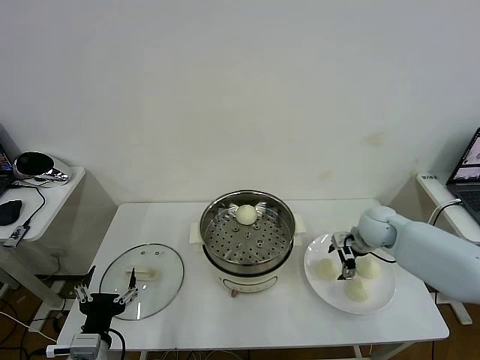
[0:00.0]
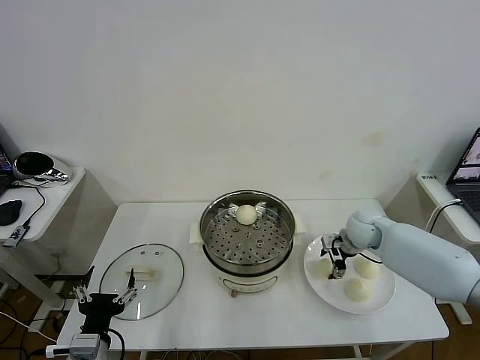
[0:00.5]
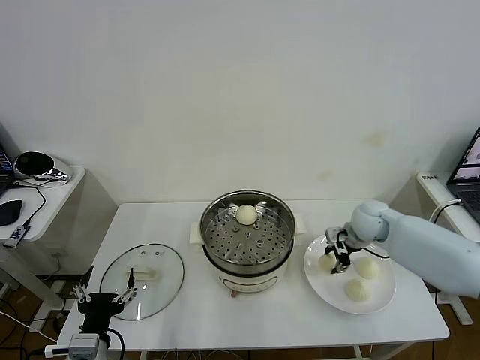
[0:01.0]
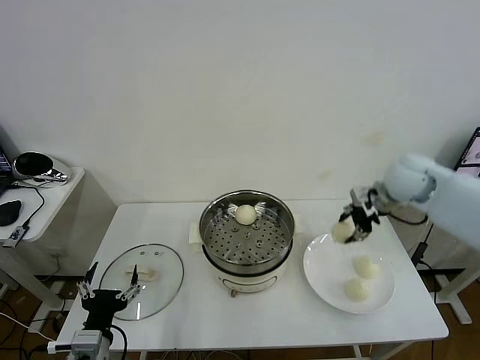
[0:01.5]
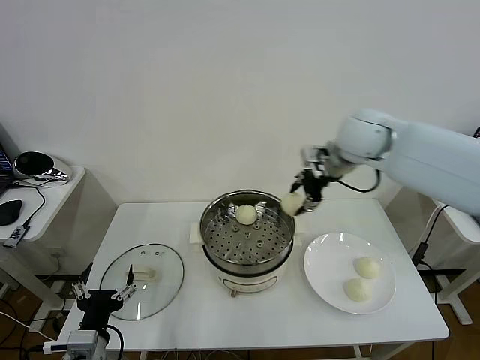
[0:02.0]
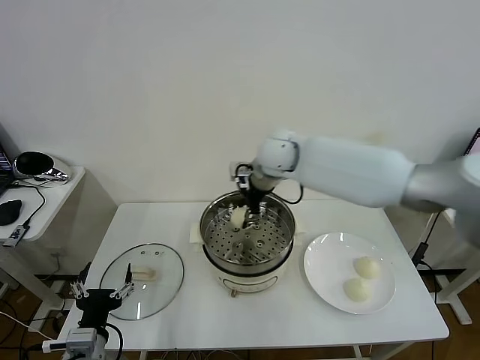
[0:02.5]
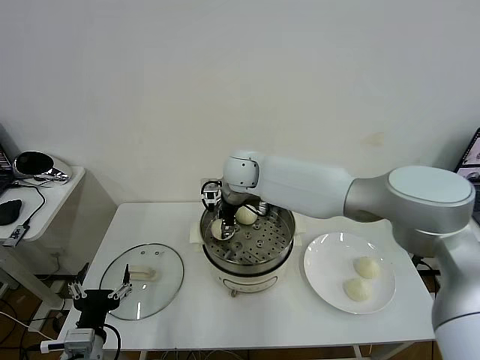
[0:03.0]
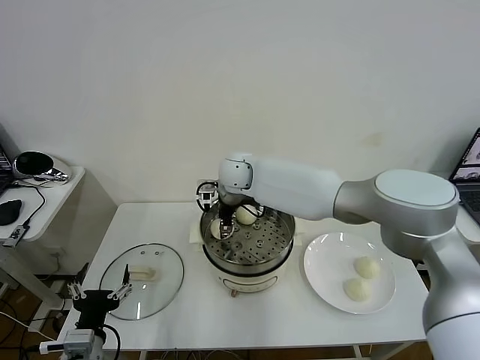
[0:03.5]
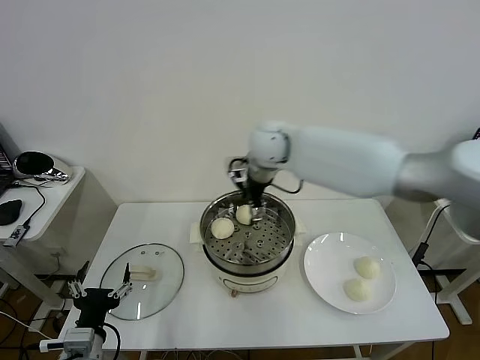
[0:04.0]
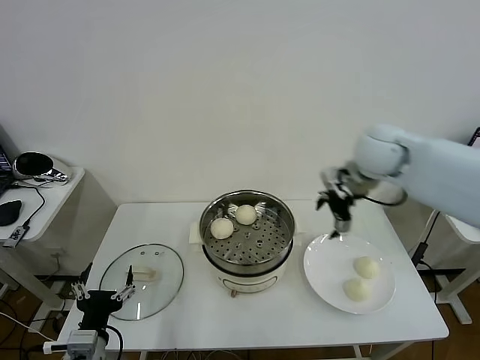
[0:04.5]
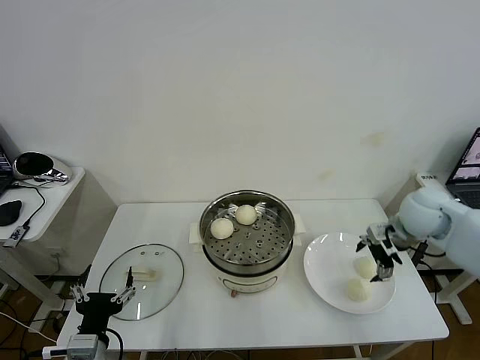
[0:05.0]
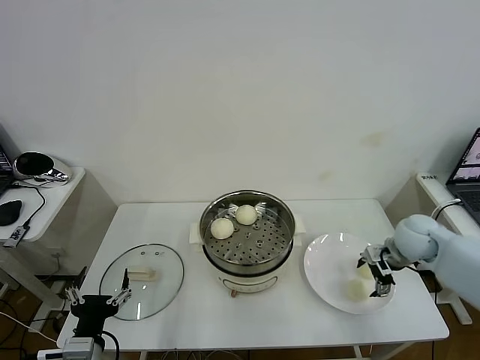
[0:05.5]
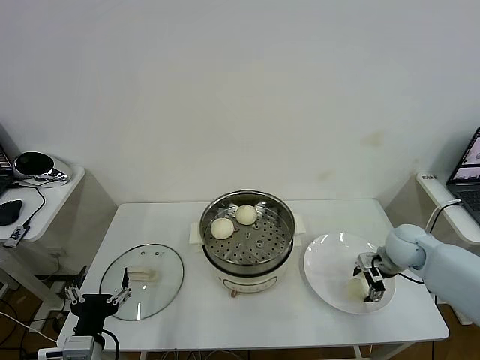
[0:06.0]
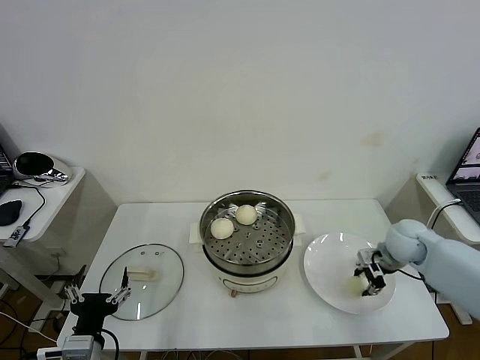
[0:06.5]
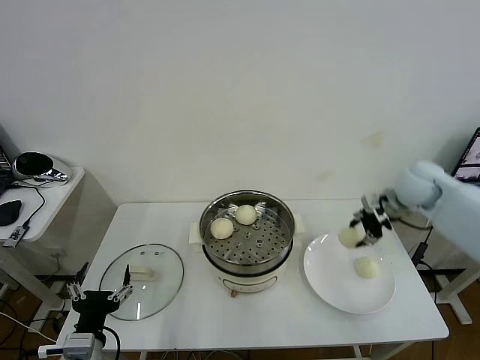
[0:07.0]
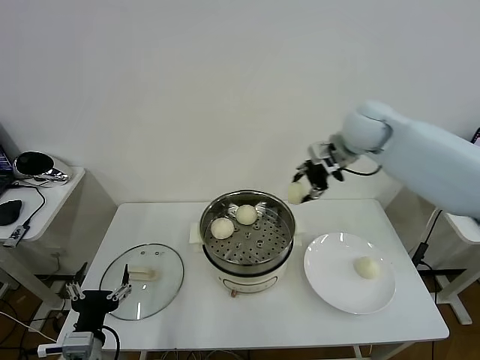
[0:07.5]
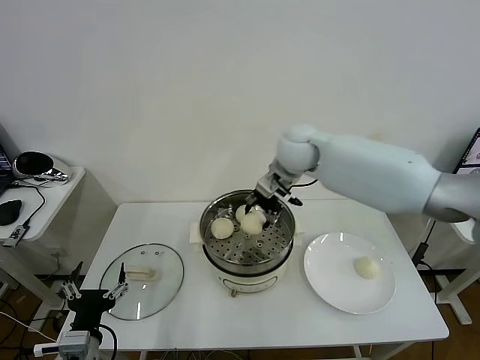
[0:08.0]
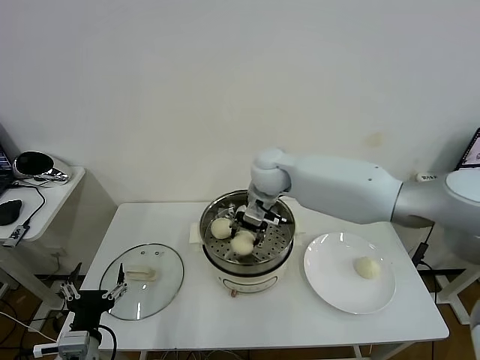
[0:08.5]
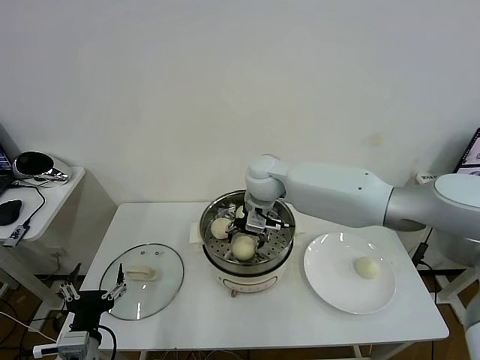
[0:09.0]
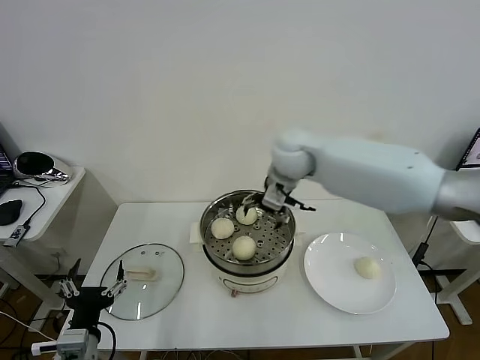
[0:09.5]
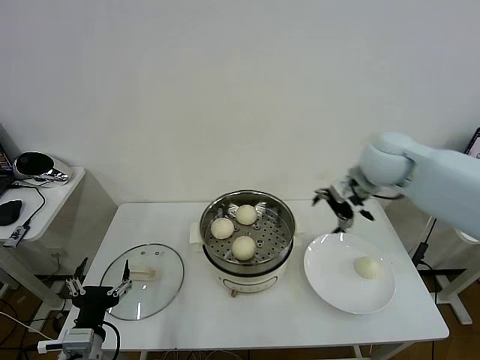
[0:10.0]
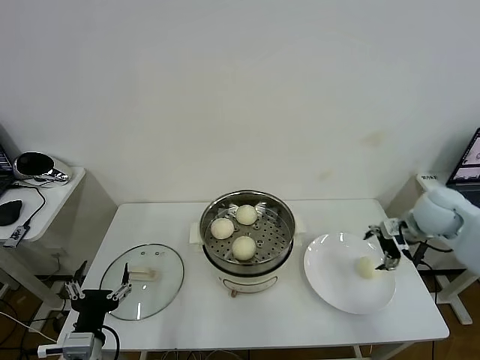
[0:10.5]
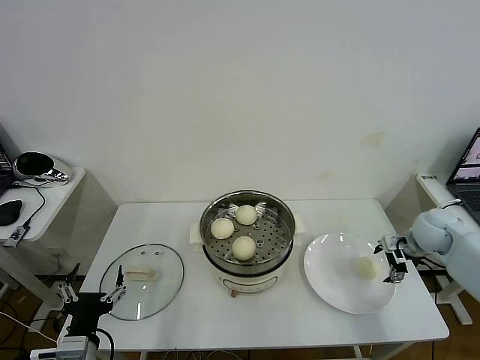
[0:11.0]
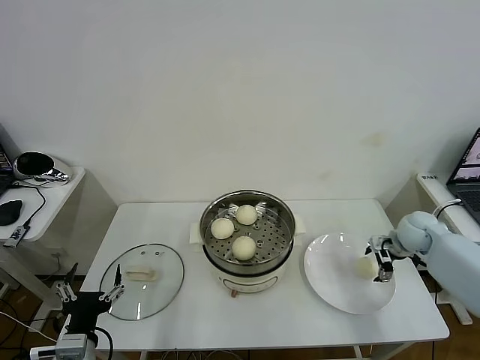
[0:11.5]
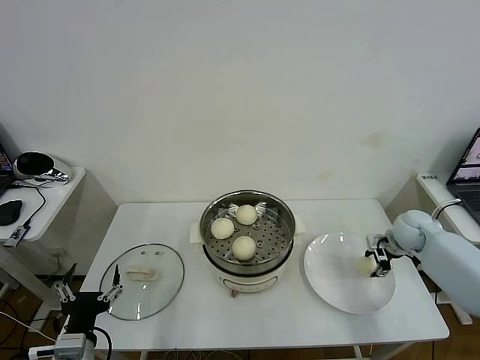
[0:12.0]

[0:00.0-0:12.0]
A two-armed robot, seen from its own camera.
Task of the whole recording: take steamed baozi put them in steamer then cover it.
Step, 0:01.0 to 0:03.5: Place the baozi on the steamer with right gripper.
Step, 0:04.0 to 0:06.0: Grasp the baozi in the plate with right gripper.
Step, 0:06.5 to 0:09.0: Place the baozi on the steamer with right gripper.
Step, 0:09.5 to 0:11.5: Grasp the baozi in the plate with right gripper.
0:00.0 to 0:02.0: The right gripper is displaced upward and to the left by some 25 cm, and closes.
0:02.0 to 0:04.0: The right gripper goes roughly 10 cm to the left, and opens its fingers.
0:04.0 to 0:06.0: The right gripper is displaced to the right and downward by roughly 35 cm, and closes.
0:06.0 to 0:08.0: The right gripper travels to the left and upward by approximately 35 cm, and closes.
0:08.0 to 0:10.0: The right gripper heads to the right, covering approximately 20 cm, and opens its fingers.
0:10.0 to 0:12.0: The right gripper heads downward and to the right, covering some 25 cm, and closes its fingers.

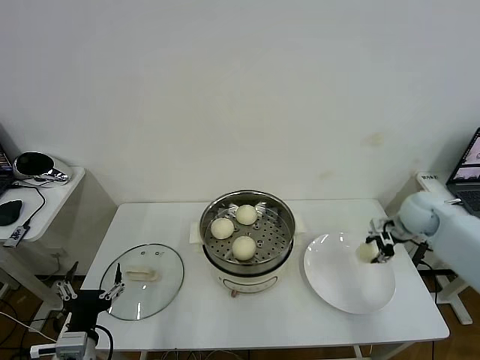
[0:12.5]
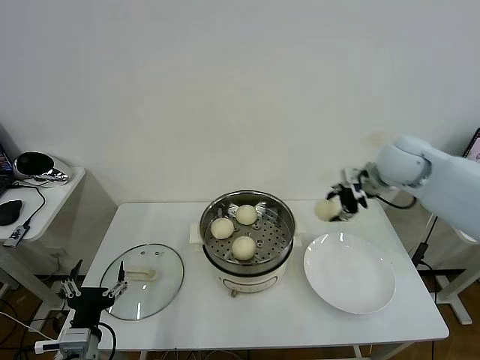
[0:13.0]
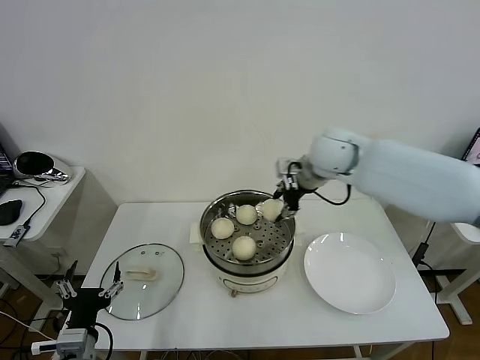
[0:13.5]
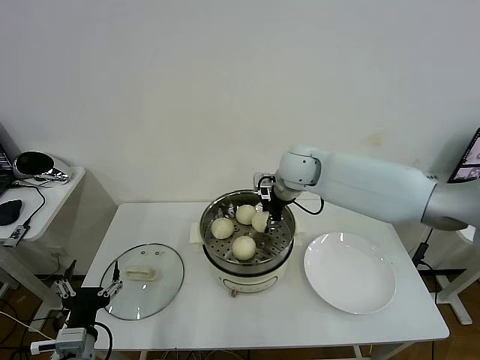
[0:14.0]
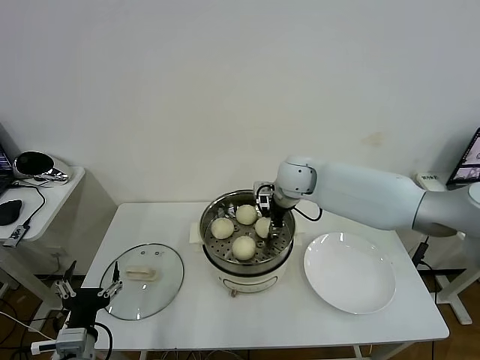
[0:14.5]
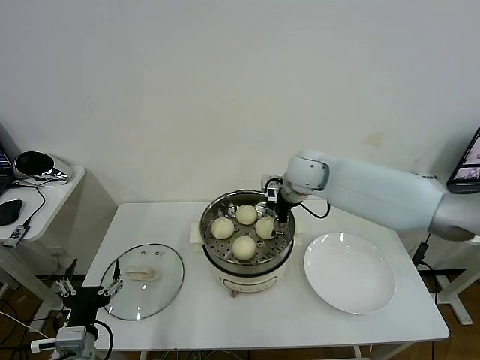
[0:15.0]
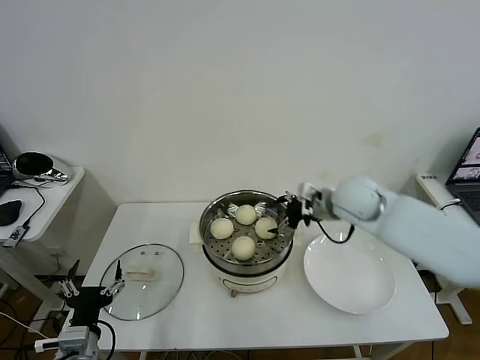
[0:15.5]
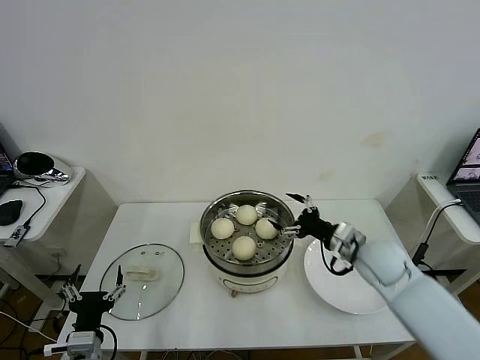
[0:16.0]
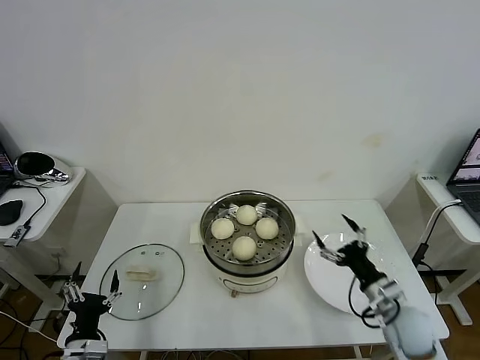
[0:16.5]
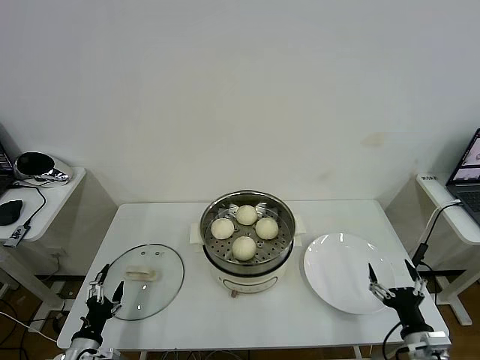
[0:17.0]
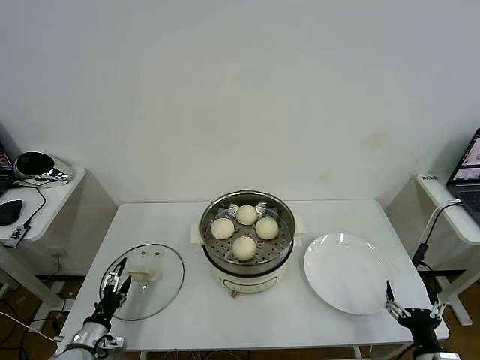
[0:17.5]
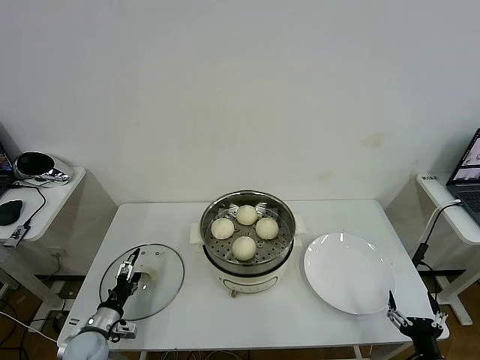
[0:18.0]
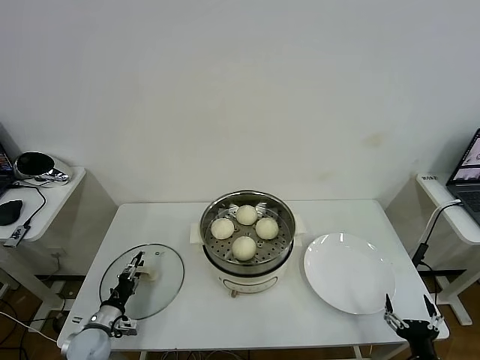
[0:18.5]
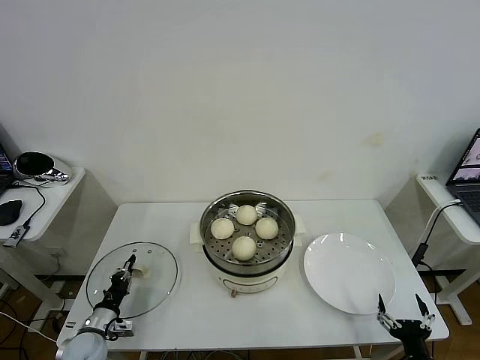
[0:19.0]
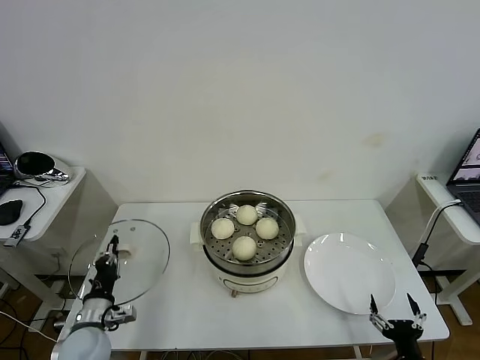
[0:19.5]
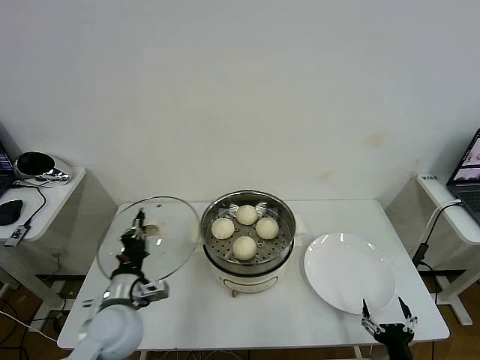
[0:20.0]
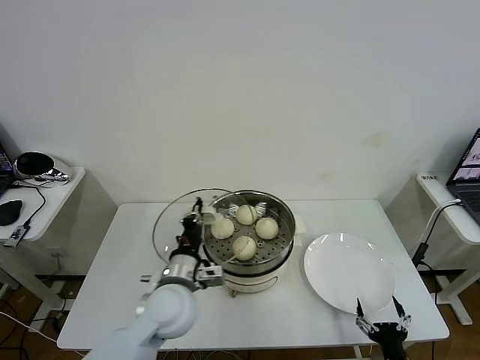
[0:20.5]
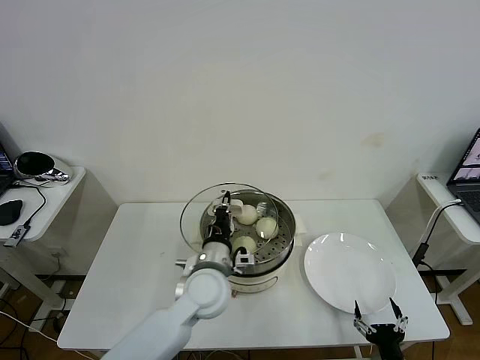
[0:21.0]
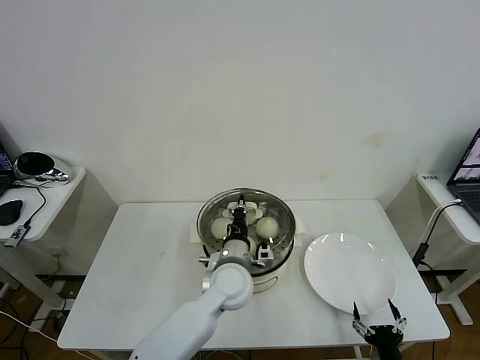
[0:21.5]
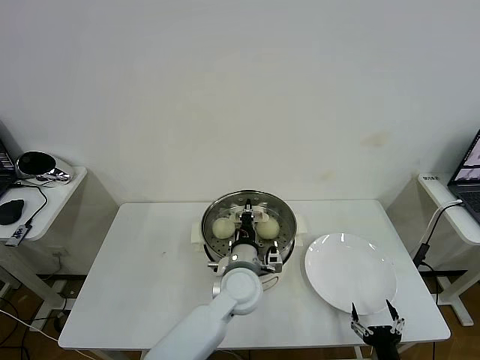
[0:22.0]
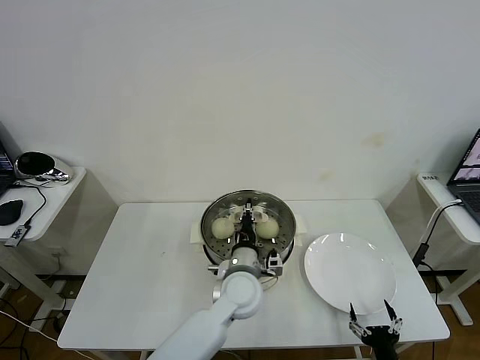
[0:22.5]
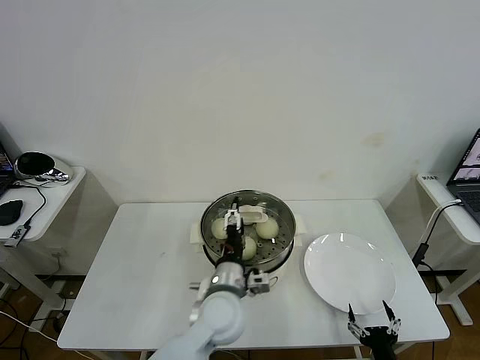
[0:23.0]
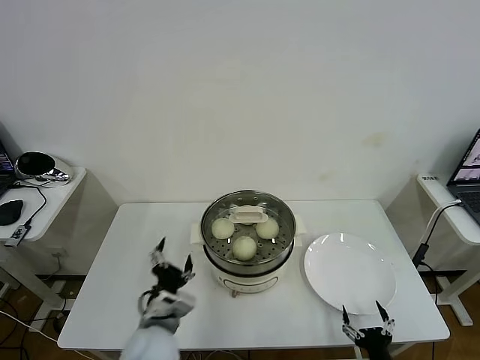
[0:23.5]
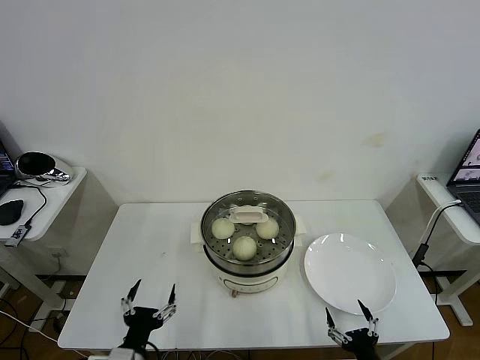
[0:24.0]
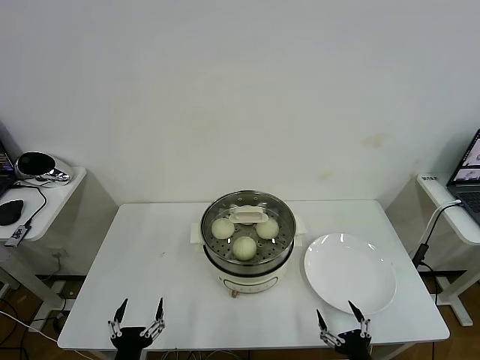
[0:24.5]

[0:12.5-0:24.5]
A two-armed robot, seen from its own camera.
Task of the whole recording: take steamed baozi put them in steamer then cover it.
Step, 0:12.5 to 0:14.5: Place the baozi on the steamer with right gripper.
Step, 0:15.0 to 0:19.0: Grasp the pot lid with left gripper.
Step, 0:19.5 to 0:22.5: Place the pot lid on the steamer with left gripper.
0:12.5 to 0:14.5: The right gripper is displaced to the left by approximately 30 cm.
0:14.5 to 0:16.5: The right gripper moves backward, to the right and downward, approximately 40 cm, and opens up, while the left gripper shifts about 10 cm downward.
0:16.5 to 0:18.5: The left gripper goes approximately 15 cm forward, downward and to the left, and closes up, while the right gripper is displaced backward and downward by about 20 cm.
0:18.5 to 0:20.5: The left gripper travels to the right and upward by approximately 30 cm, and closes up.
0:20.5 to 0:22.5: The left gripper goes roughly 15 cm to the right.
0:22.5 to 0:24.5: The left gripper is displaced to the left and backward by approximately 35 cm, and opens up.
